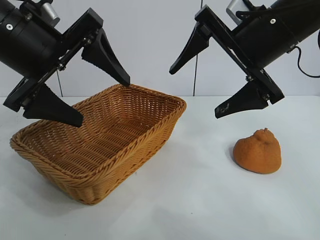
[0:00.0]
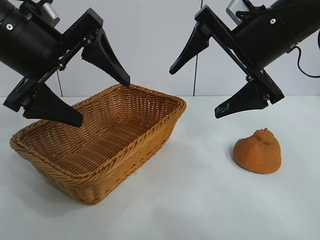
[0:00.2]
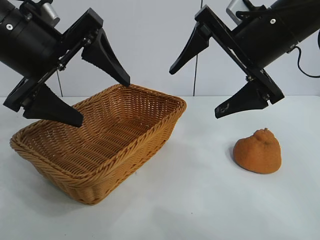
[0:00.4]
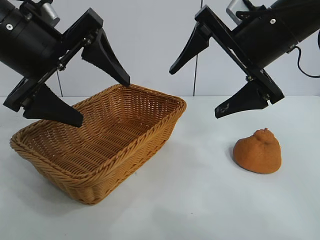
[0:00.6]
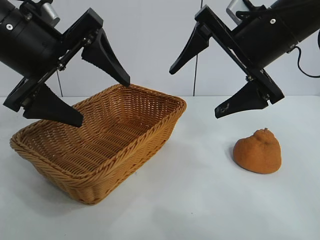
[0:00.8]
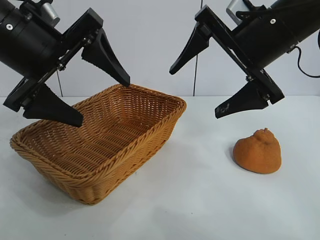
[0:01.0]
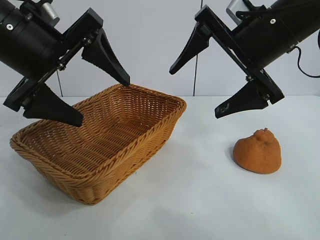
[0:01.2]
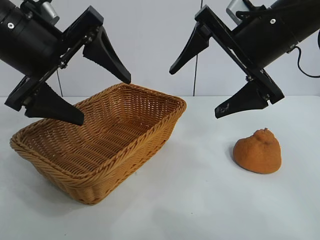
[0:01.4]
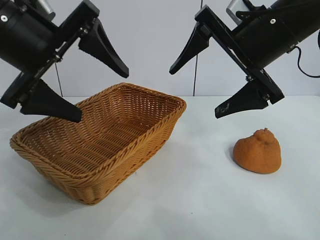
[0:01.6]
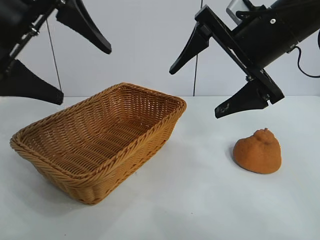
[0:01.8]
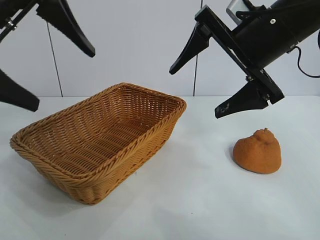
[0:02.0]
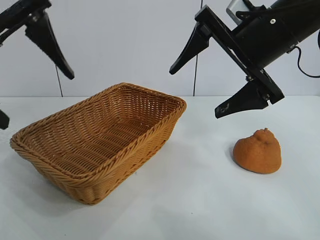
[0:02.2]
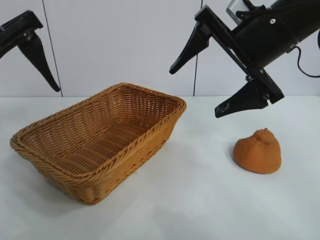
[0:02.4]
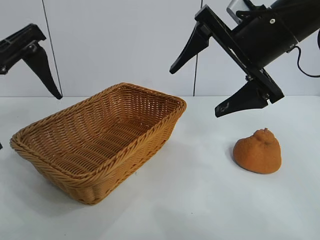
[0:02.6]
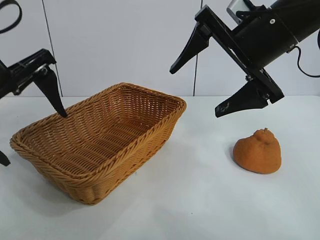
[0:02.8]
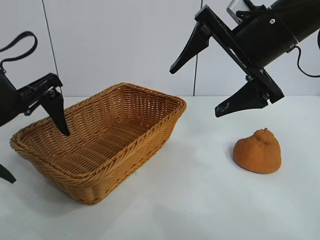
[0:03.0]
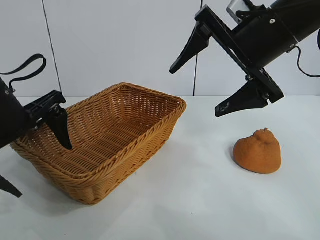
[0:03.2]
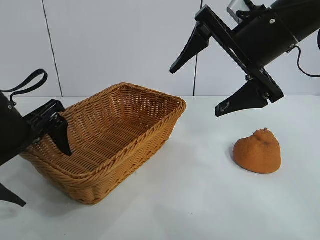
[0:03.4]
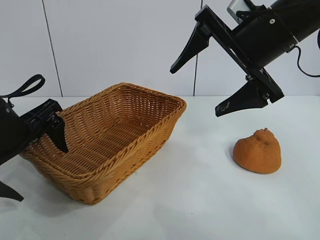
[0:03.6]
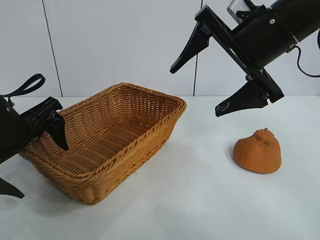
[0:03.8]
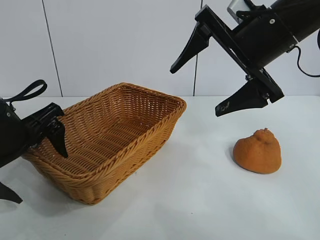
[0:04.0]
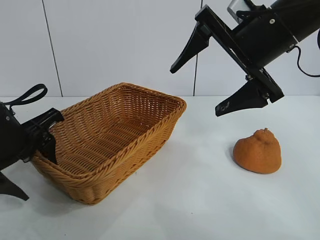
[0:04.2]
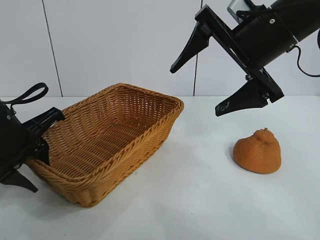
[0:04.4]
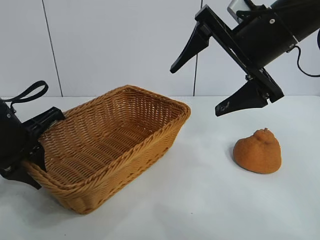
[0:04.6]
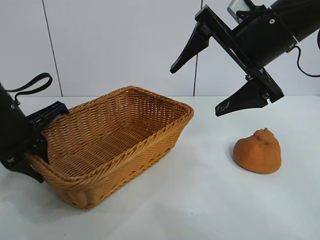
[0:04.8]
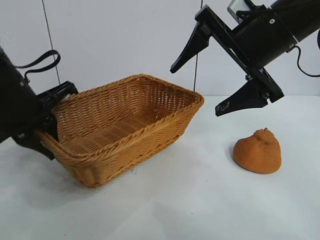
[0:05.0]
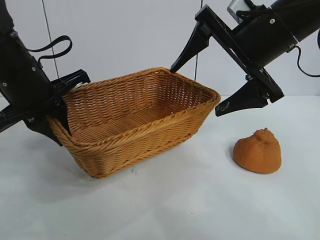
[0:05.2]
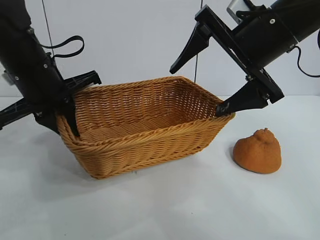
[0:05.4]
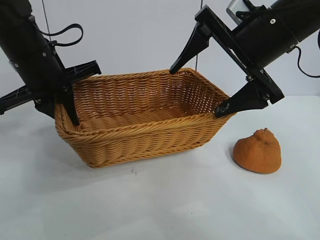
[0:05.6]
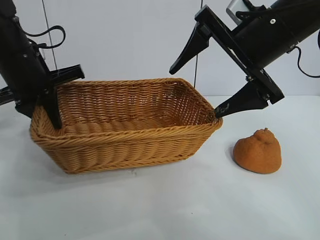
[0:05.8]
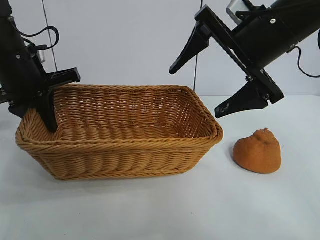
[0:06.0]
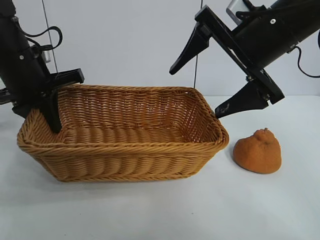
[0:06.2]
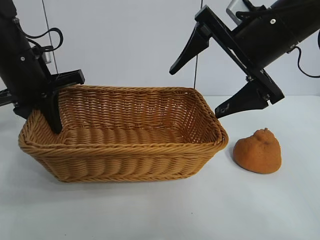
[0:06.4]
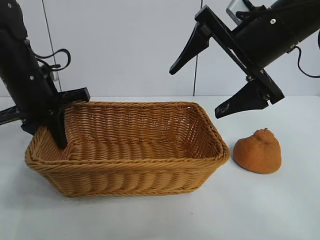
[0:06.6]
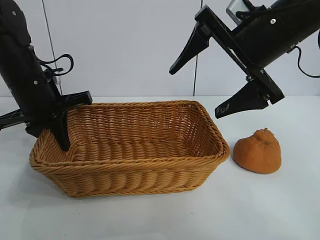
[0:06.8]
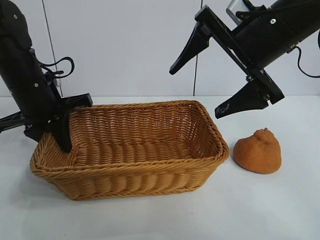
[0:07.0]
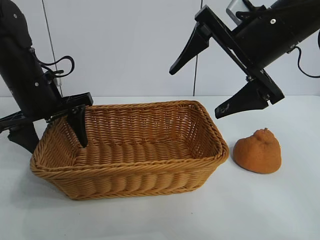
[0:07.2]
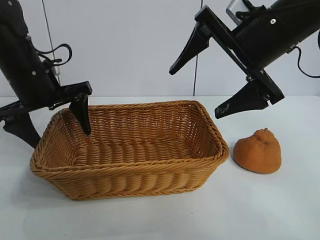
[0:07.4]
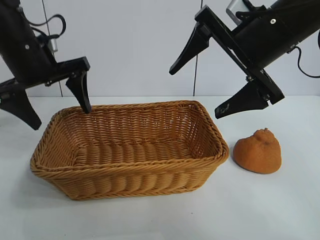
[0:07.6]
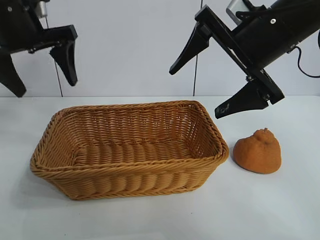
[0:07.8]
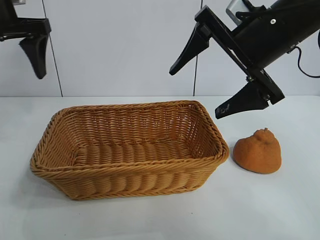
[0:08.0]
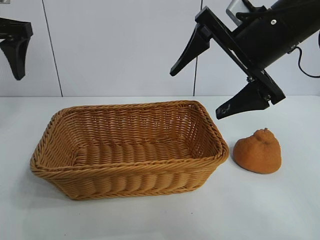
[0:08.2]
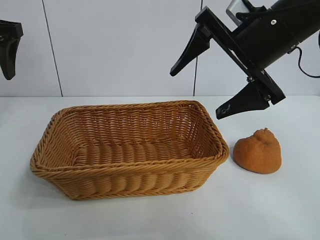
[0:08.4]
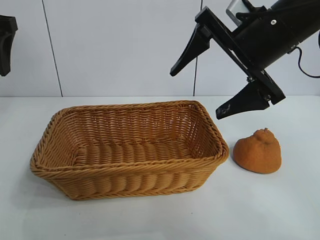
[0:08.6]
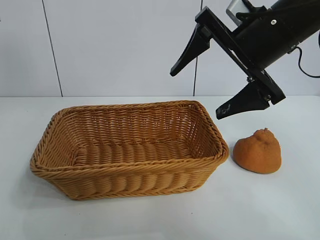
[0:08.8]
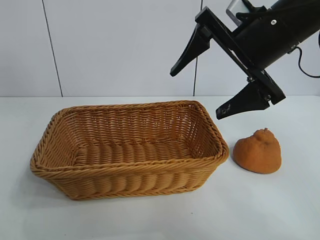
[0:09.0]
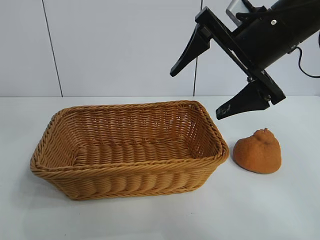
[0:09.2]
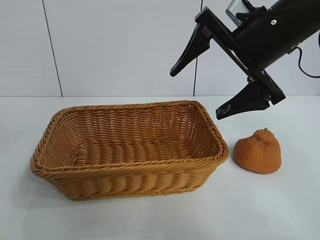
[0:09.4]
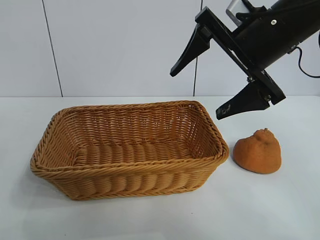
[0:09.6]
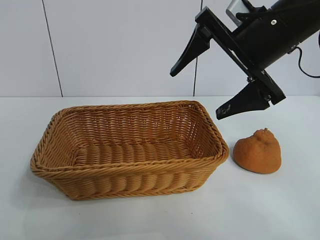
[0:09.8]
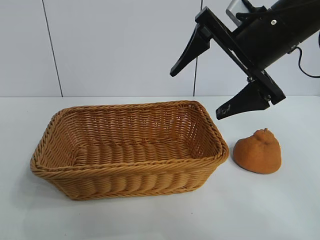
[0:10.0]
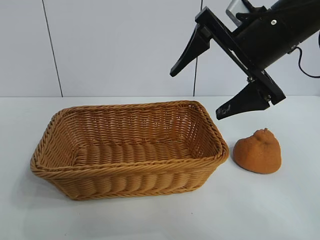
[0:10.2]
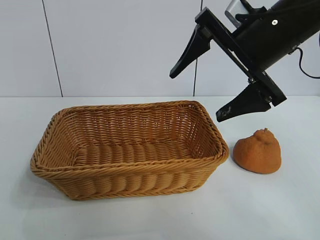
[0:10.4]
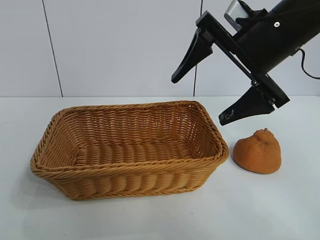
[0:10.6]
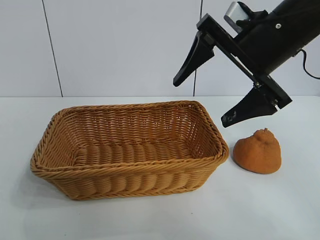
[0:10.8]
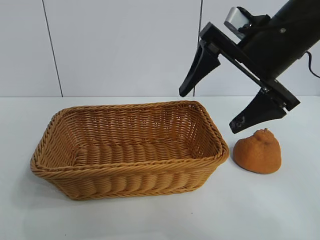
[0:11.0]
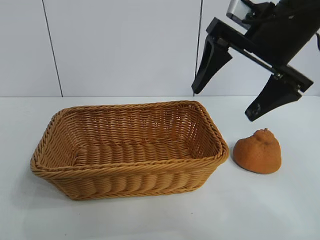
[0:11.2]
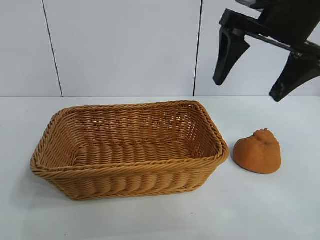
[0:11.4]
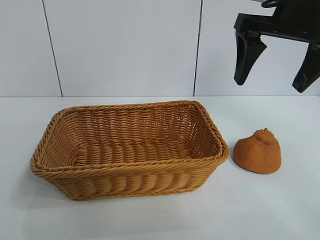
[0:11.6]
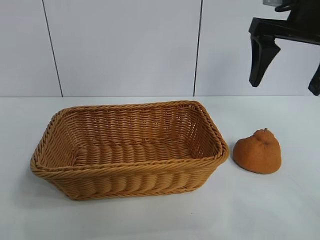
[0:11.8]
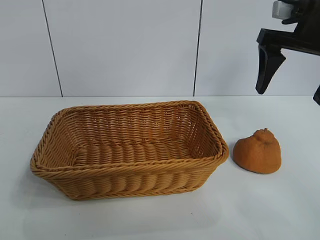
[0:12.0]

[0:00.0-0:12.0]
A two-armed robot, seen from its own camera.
Task of the whole recording: pick up the orange and put it into the basket.
Step, 0:01.4 to 0:04.4: Grasp the basket with left gripper.
Step, 0:04.8 to 0:07.2: Place the basket in the center of view with left gripper.

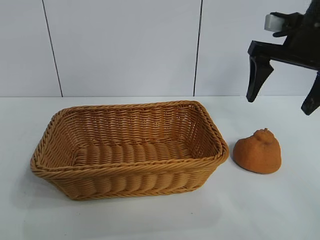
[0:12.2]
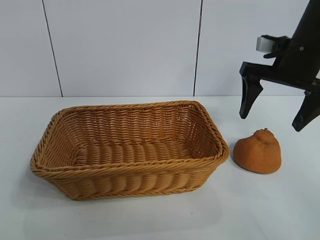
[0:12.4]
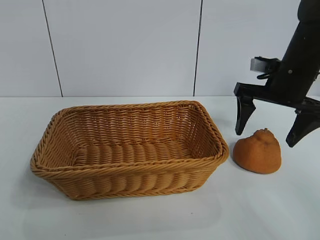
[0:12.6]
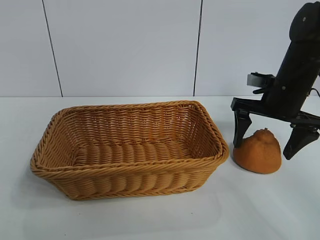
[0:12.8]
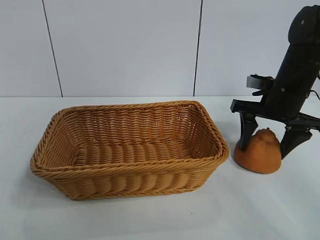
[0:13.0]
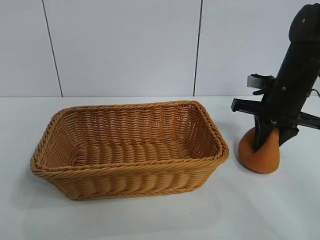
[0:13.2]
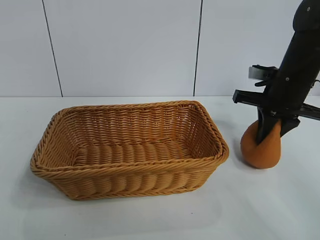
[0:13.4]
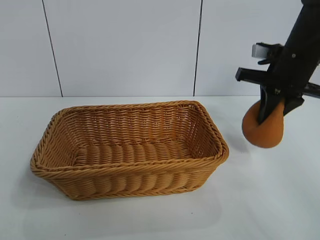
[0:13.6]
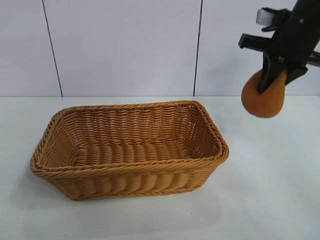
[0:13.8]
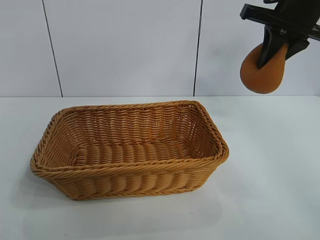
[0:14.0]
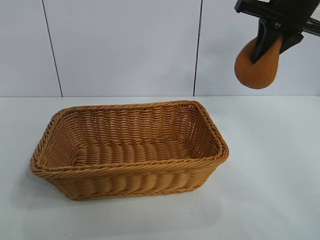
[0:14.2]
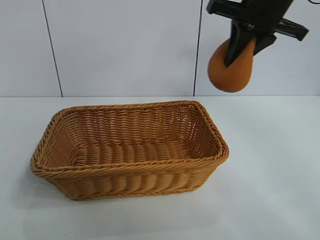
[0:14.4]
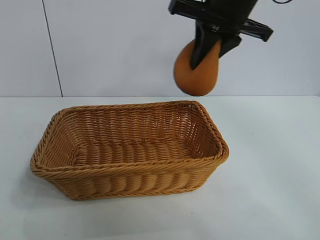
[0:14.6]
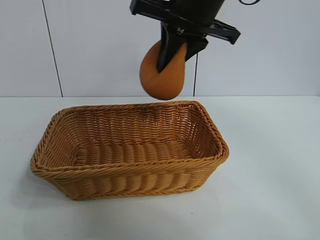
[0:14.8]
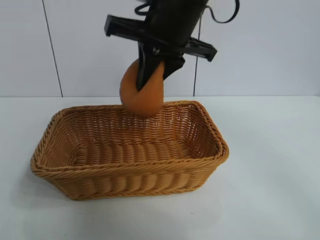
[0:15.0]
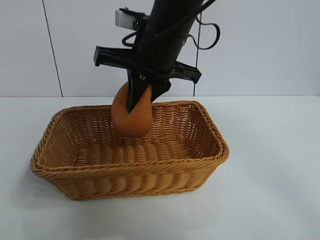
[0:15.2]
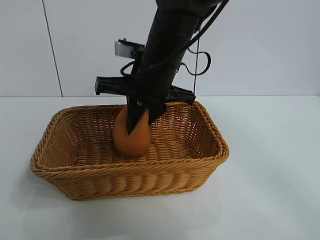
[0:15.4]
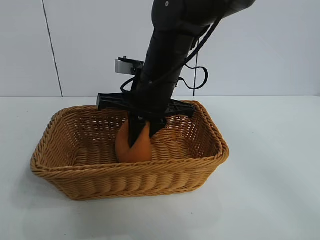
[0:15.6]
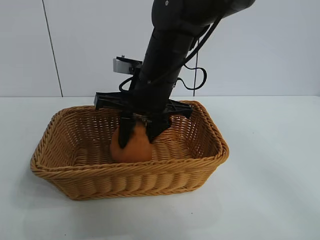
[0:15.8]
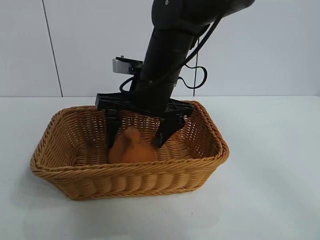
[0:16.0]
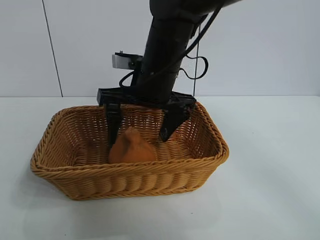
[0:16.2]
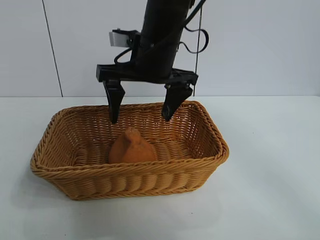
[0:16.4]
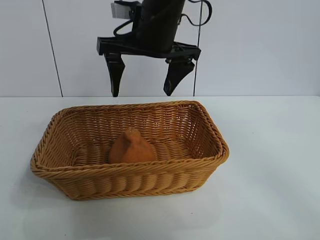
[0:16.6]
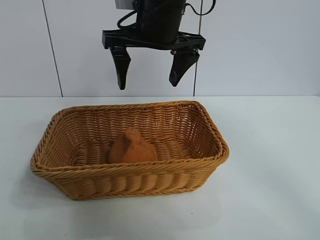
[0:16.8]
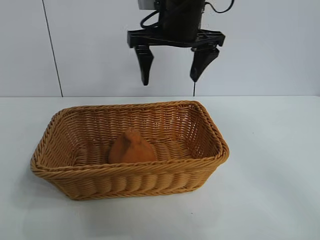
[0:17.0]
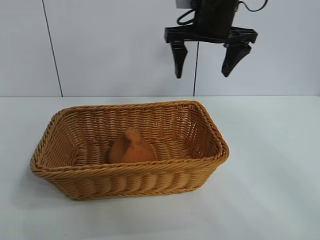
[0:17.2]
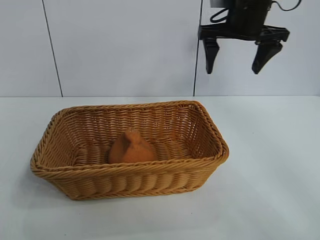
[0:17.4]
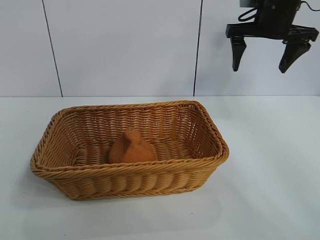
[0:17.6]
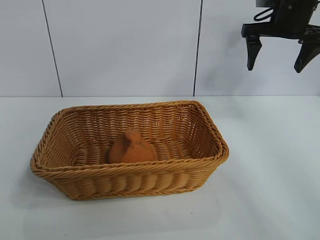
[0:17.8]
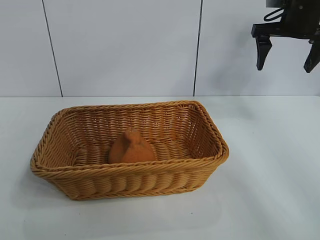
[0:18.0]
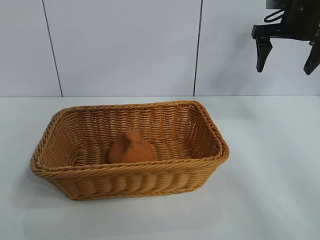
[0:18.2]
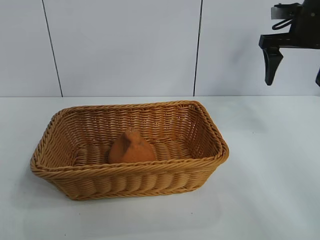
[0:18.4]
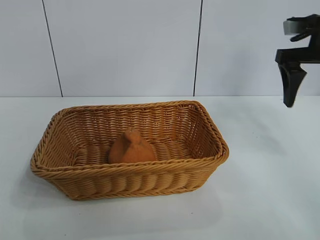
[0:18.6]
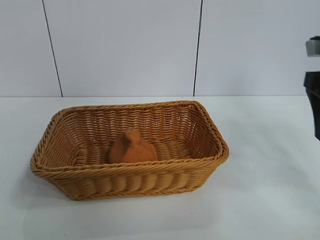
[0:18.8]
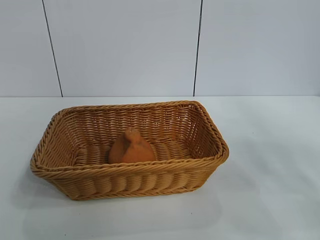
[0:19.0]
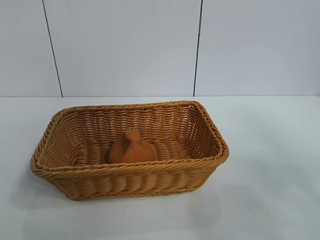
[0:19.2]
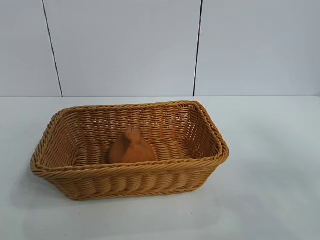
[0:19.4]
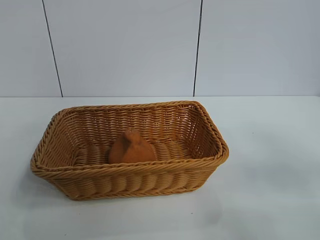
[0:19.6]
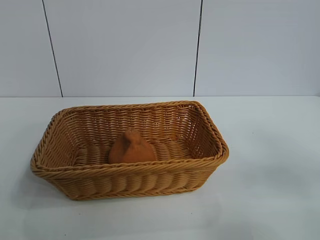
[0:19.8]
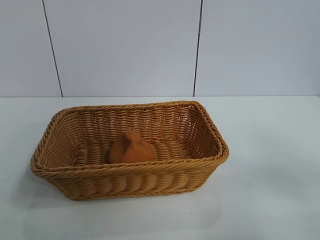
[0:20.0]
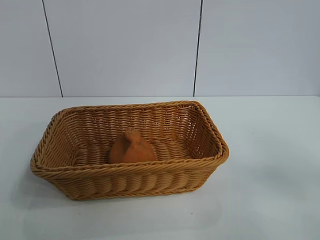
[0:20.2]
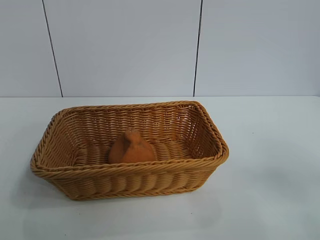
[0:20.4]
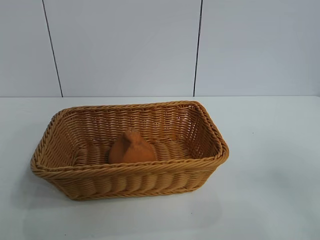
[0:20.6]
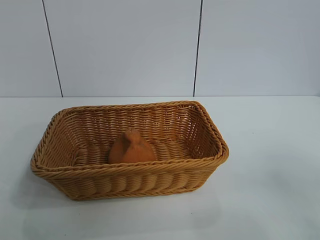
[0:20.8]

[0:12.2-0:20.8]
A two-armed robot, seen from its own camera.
Task of the whole recording: pick up the orange and put it into the basket.
Step, 0:13.6 to 0:16.0: Place the orange in the basket with right gripper.

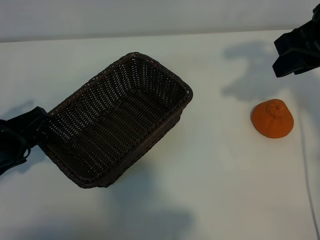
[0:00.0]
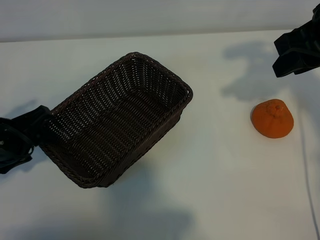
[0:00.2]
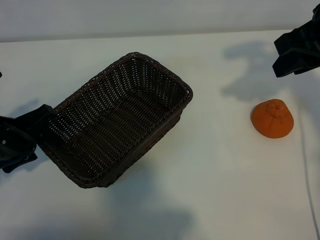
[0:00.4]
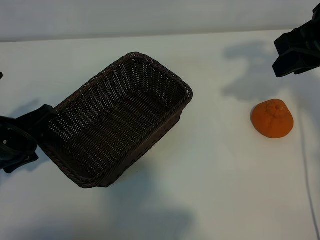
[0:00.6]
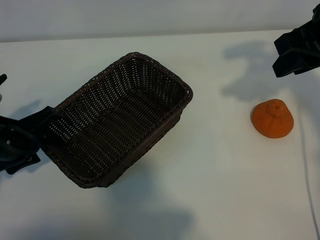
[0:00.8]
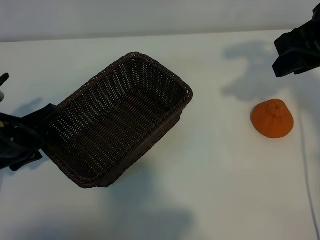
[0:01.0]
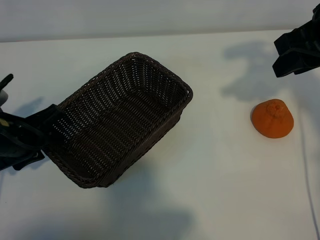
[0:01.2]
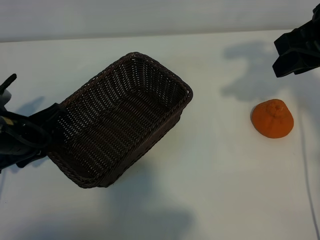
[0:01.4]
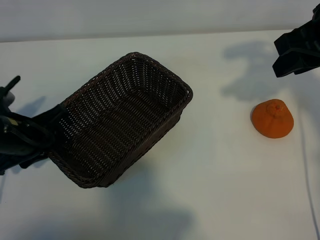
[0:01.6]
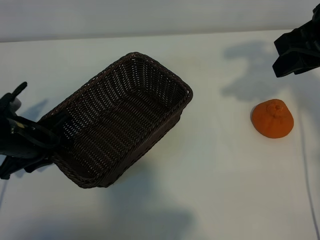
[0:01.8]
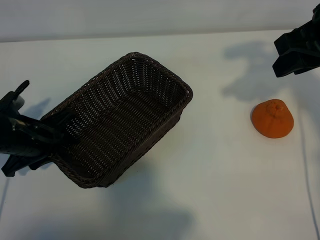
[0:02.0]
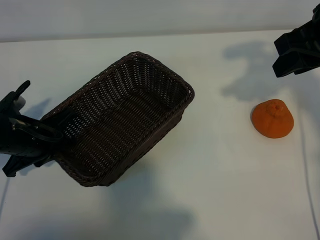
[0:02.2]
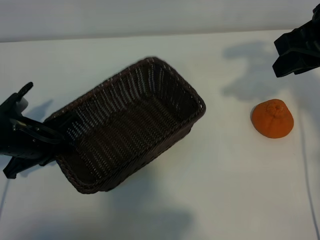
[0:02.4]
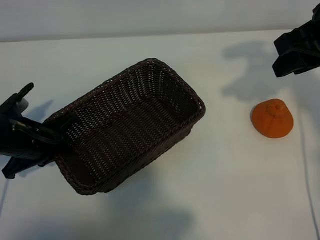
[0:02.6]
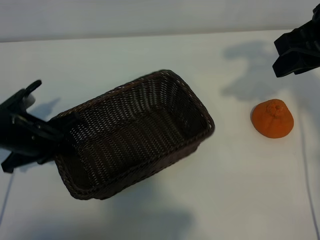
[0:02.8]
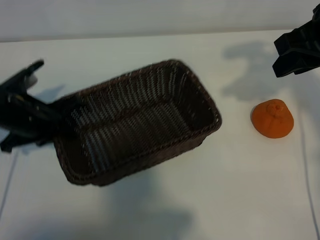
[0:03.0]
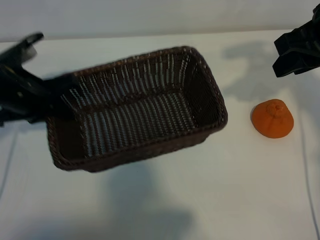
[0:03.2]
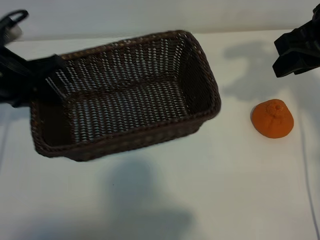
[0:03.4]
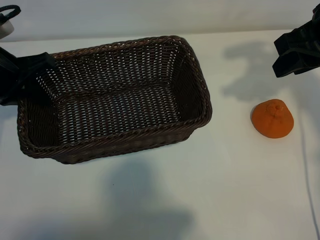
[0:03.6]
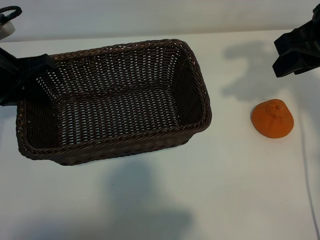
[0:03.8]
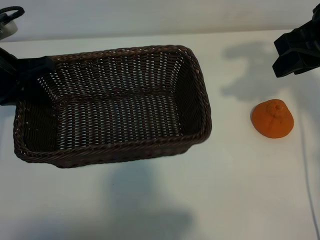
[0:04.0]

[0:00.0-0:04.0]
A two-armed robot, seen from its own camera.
Task of the whole recording: pick up the orange and put it into the basket.
Step, 0:00.0 to 0:02.4: Grasp the basket with left gripper.
